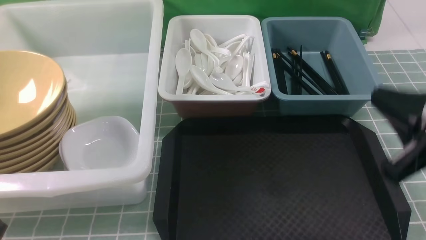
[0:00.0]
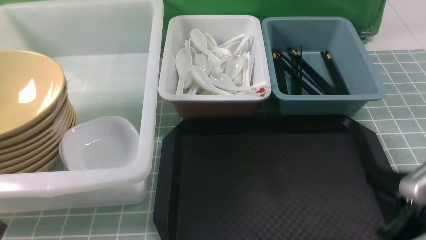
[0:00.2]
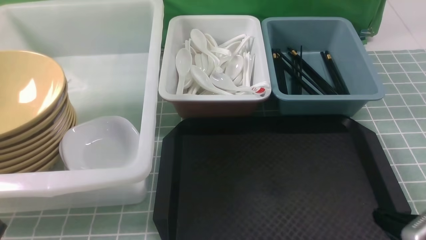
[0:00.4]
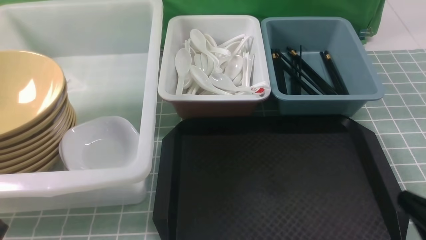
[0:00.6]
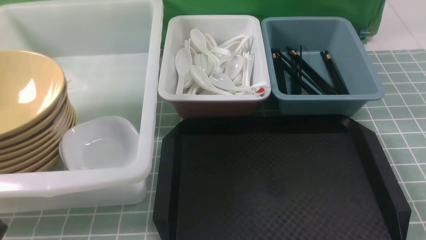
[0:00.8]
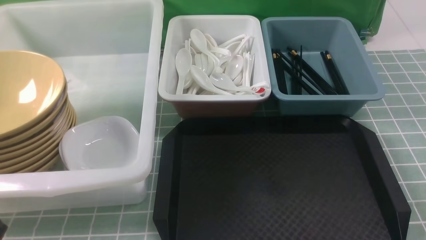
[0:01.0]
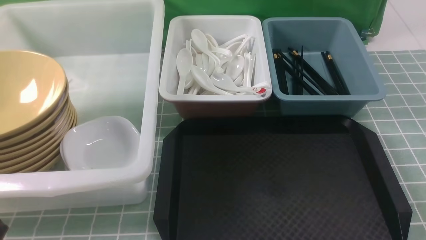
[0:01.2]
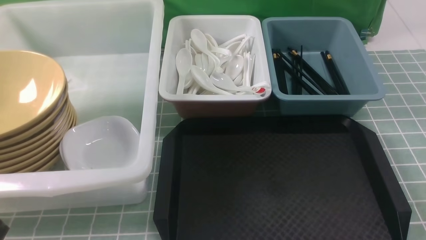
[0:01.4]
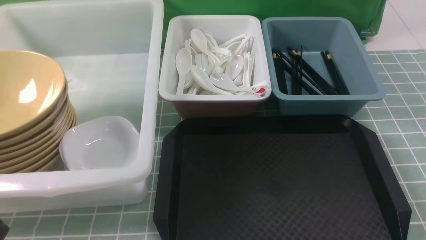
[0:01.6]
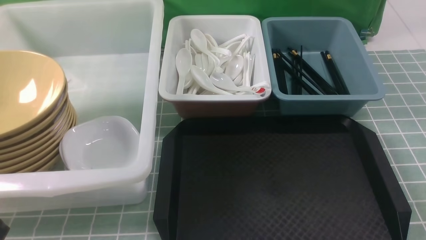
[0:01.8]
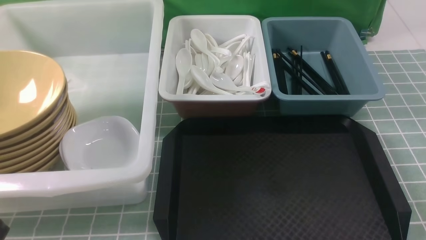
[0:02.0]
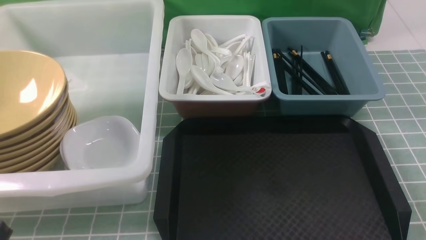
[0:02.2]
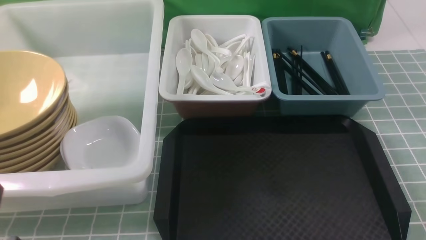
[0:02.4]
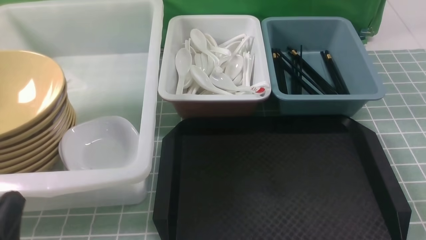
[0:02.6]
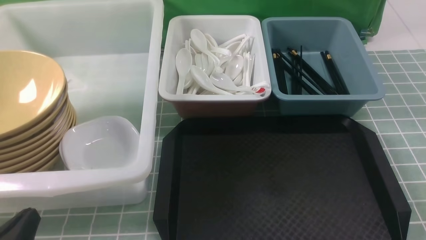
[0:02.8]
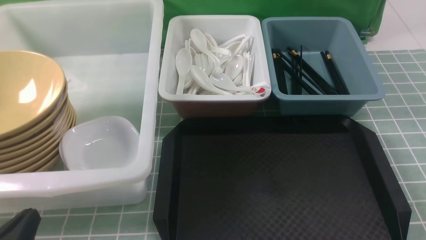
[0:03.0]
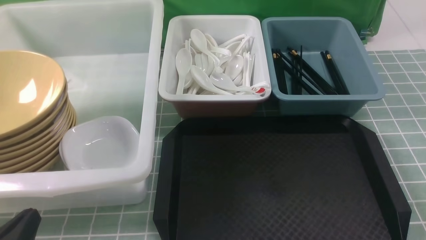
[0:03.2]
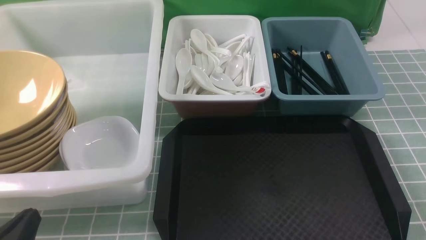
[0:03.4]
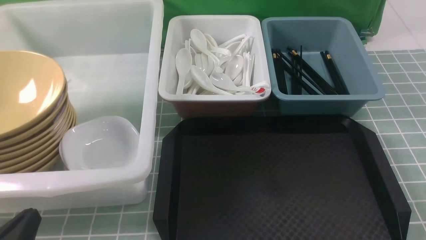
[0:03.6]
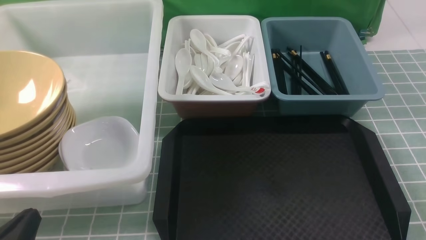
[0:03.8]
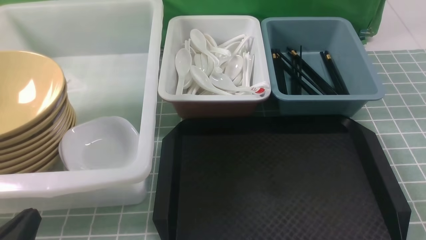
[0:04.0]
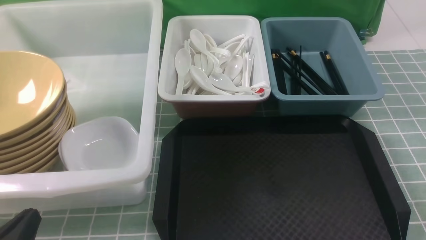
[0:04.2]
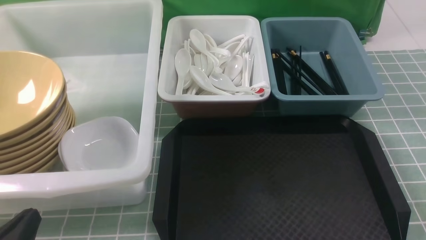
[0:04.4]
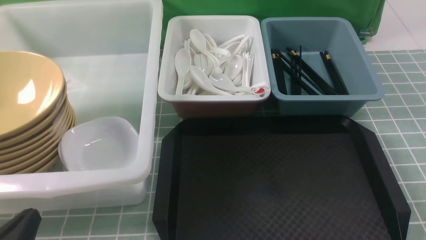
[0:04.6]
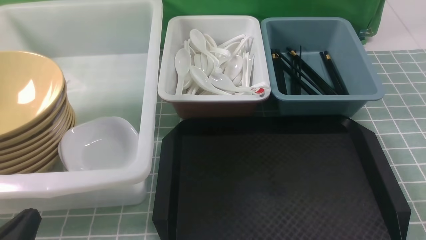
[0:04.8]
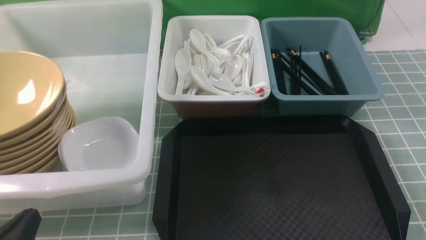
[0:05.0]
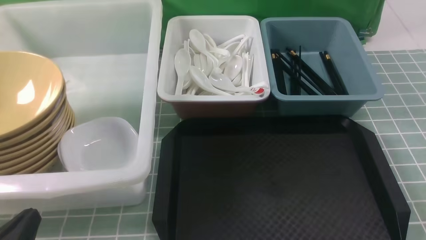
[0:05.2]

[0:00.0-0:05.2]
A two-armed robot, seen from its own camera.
Task of the whole recording: on blue table put chopsticks spoon bowls plates into blue grey white boxes.
0:00.0 to 0:01.8: The right gripper moves downward, backward and to the right, roughly 15 cm.
0:01.8 to 0:03.4: The left gripper moves downward, roughly 10 cm.
0:03.4 to 0:05.2: Neither gripper changes place.
